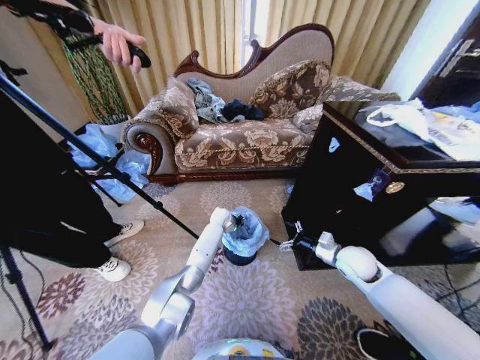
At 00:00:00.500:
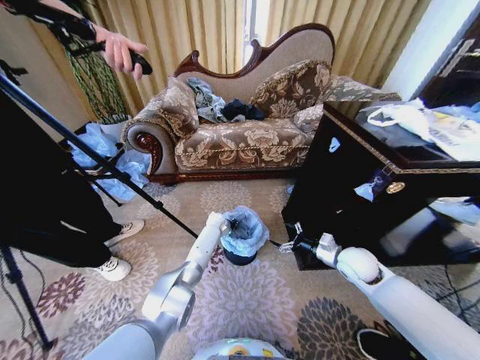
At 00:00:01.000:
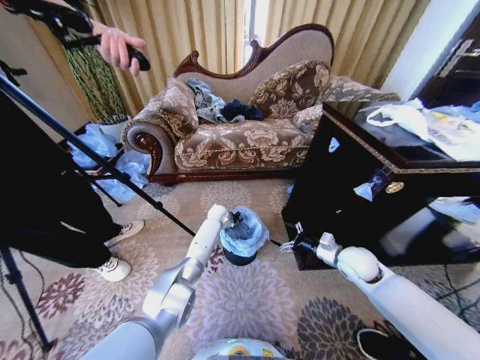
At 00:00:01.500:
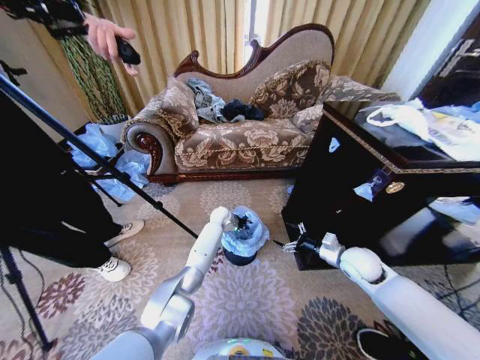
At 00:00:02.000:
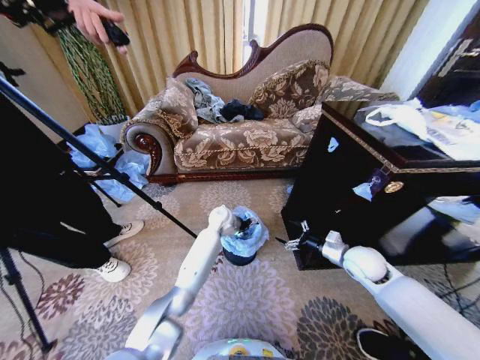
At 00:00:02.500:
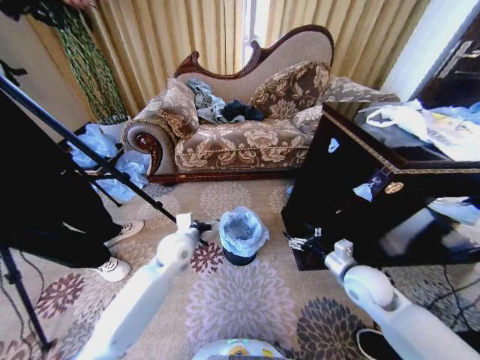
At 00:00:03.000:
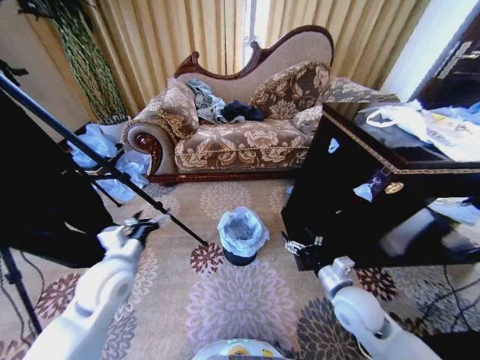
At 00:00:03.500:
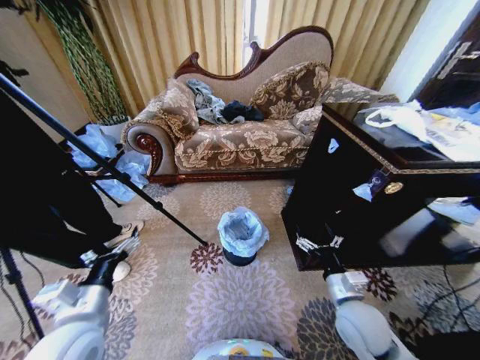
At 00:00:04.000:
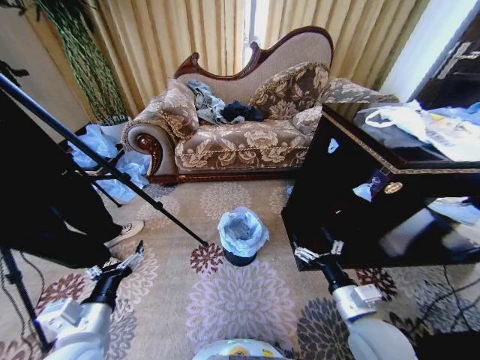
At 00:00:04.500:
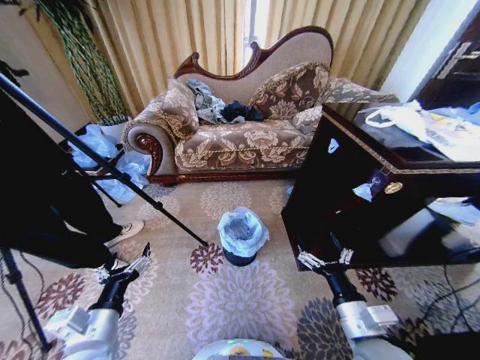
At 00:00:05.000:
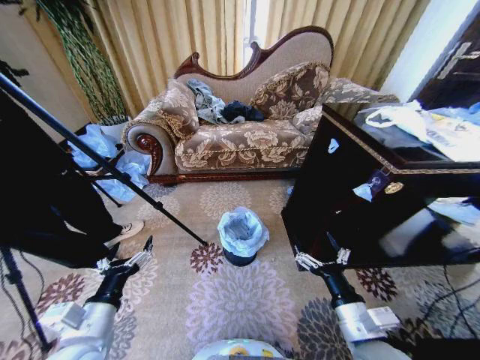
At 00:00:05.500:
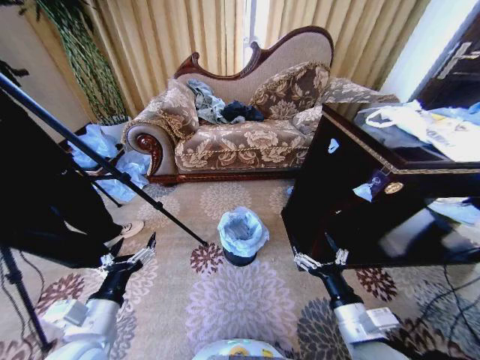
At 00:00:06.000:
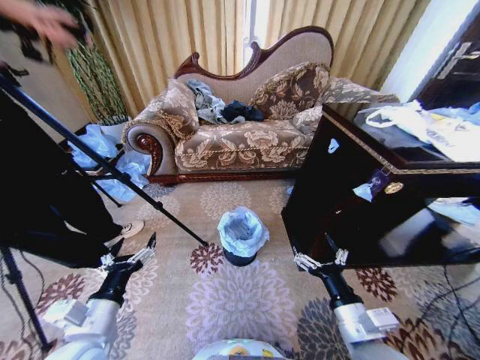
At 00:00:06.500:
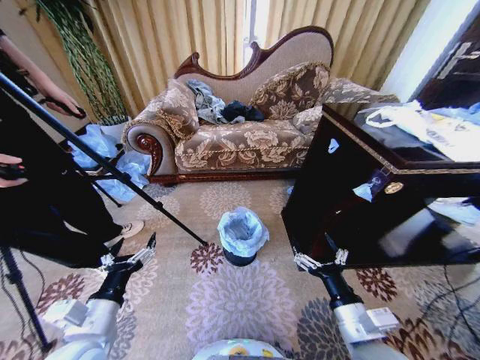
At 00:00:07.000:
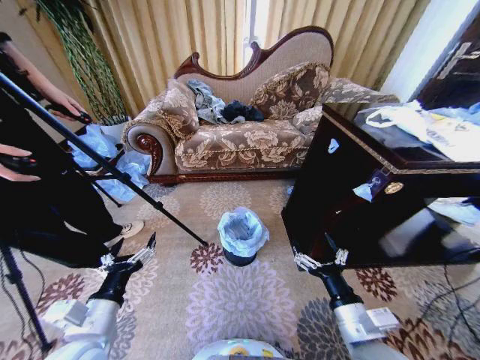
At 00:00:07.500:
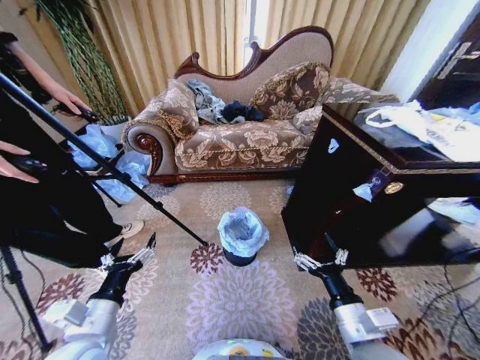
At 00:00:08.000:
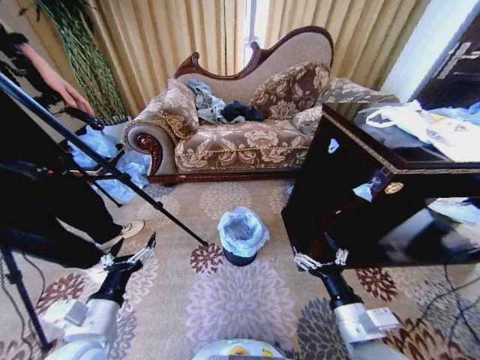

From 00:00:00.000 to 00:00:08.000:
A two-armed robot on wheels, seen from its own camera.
Task of the whole recording: Place a garbage bag over the trash bin.
From 00:00:00.000 to 00:00:02.000: The left gripper travels upward and backward by some 10 cm, and opens its fingers.
From 00:00:02.000 to 00:00:04.000: The right gripper travels backward and to the left by approximately 20 cm. The left gripper travels backward and to the left by approximately 40 cm.
From 00:00:04.000 to 00:00:06.000: The right gripper shifts by approximately 5 cm.
From 00:00:06.000 to 00:00:08.000: Both grippers stay put.
